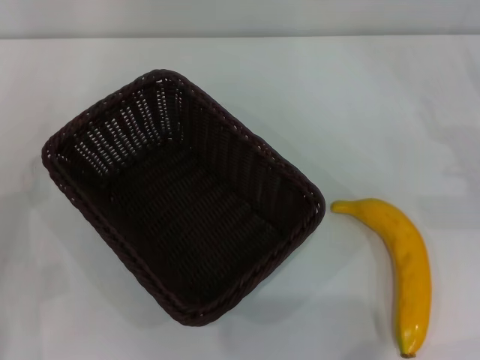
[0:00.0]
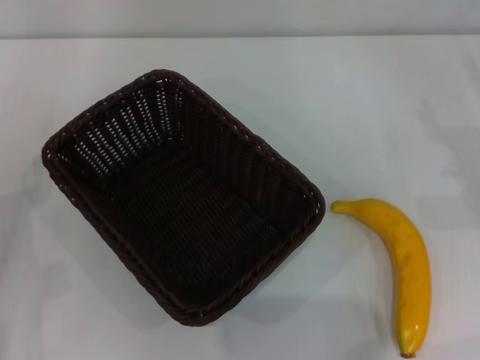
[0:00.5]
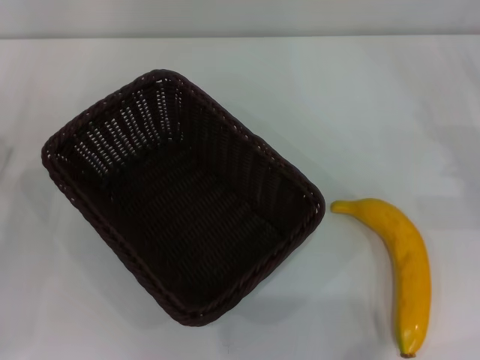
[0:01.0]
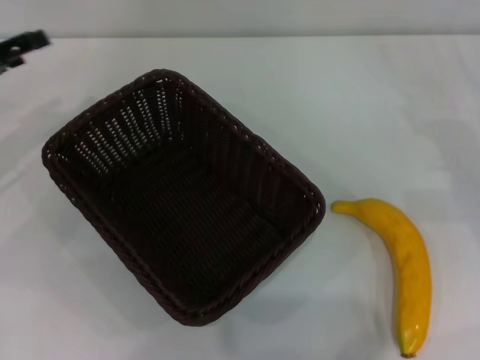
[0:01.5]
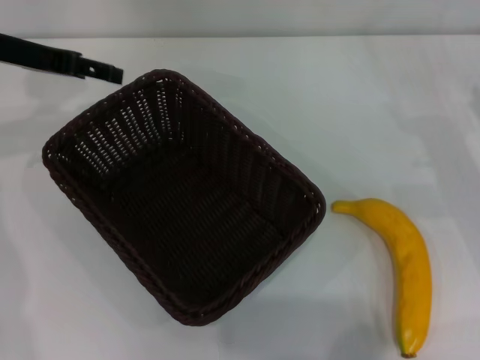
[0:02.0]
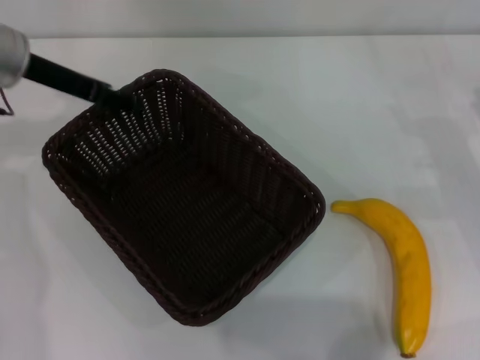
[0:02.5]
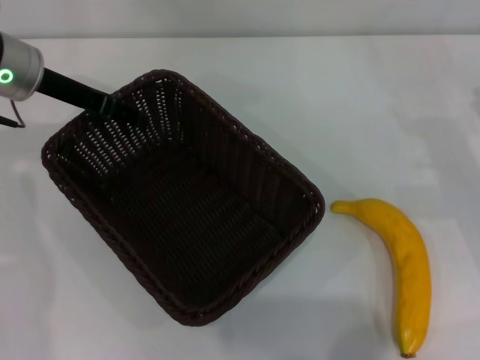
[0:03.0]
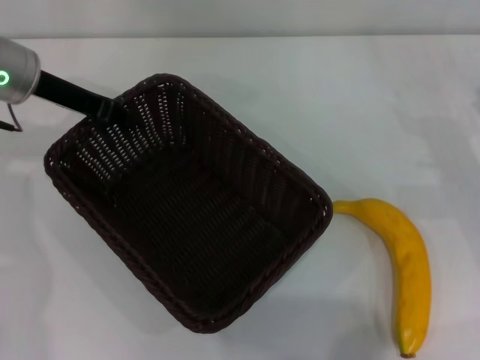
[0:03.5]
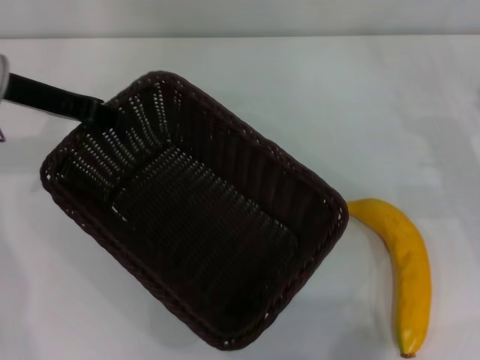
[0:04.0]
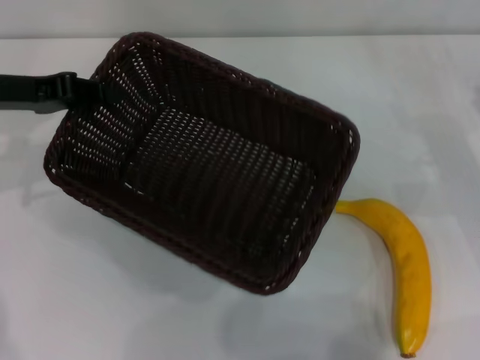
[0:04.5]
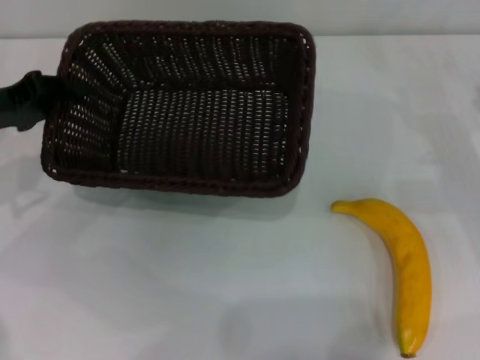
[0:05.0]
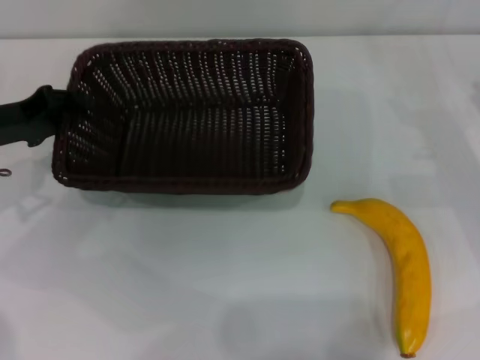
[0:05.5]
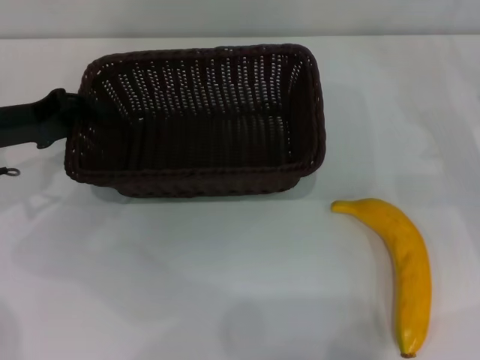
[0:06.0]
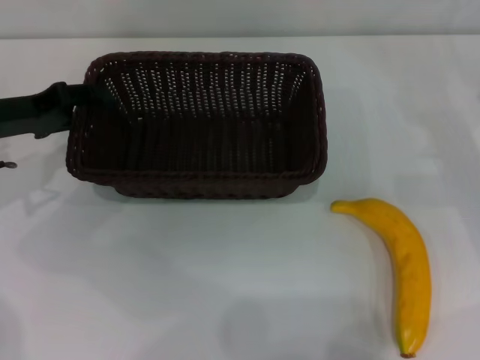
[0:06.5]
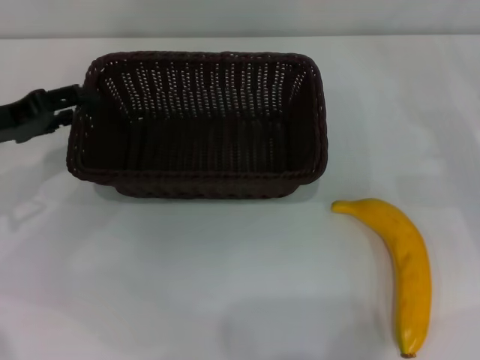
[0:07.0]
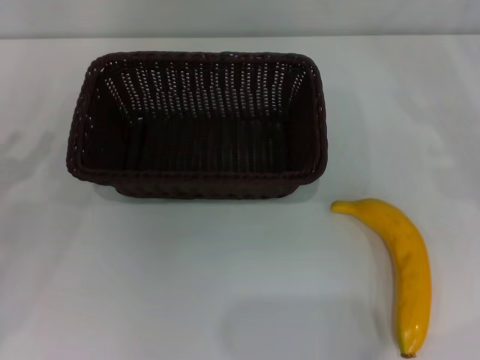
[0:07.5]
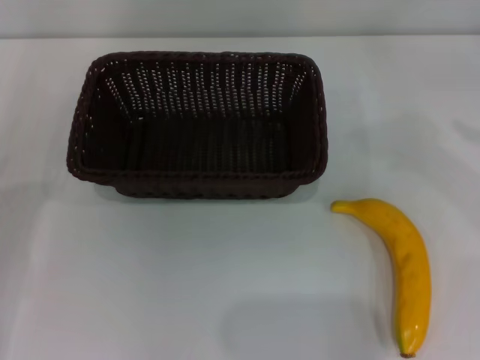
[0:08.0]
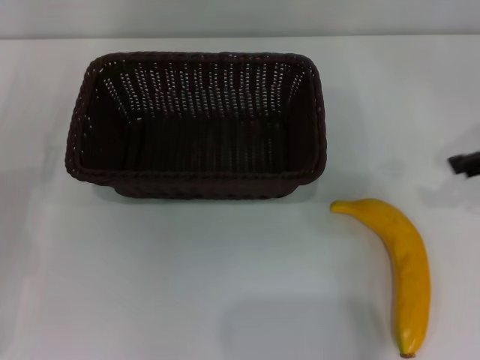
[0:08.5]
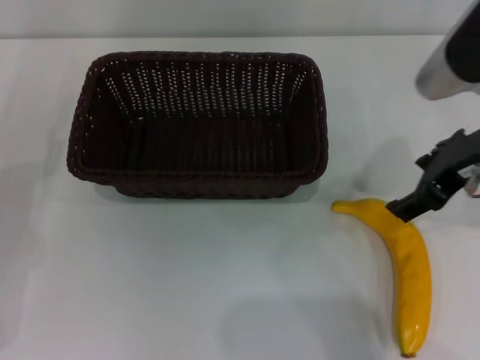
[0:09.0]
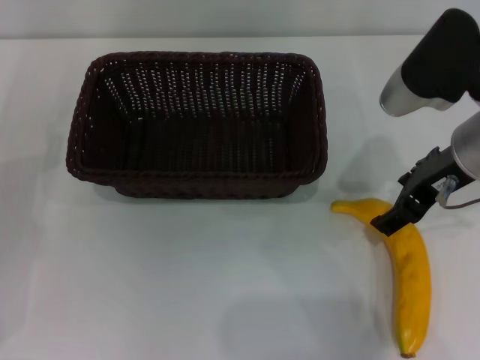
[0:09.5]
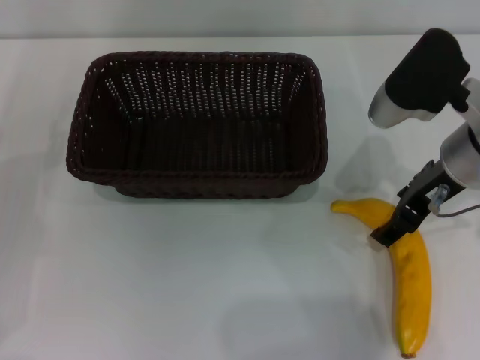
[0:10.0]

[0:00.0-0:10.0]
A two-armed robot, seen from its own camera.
Step, 0:00.0 to 0:04.0: Pick up the dark basket with the left gripper.
Step, 0:04.5 to 0:07.0: Place the dark basket in the center of view with the left gripper.
0:00.0 to 0:02.0: The left gripper moves forward and upward, some 25 cm.
0:02.0 to 0:04.0: The left gripper closes its fingers.
0:04.0 to 0:06.0: The left gripper moves downward, about 5 cm.
0:06.0 to 0:08.0: The right gripper goes some 15 cm upward and to the right. The left gripper moves backward, to the left and downward, some 15 cm, and opens up.
0:08.0 to 0:10.0: The right gripper shifts roughly 25 cm to the left.

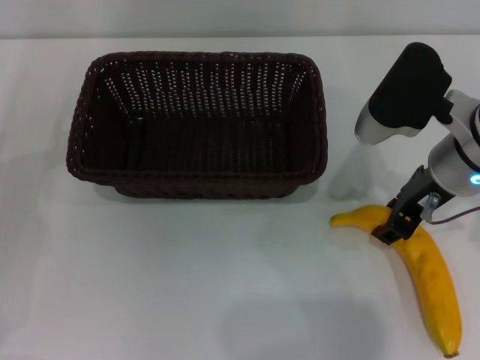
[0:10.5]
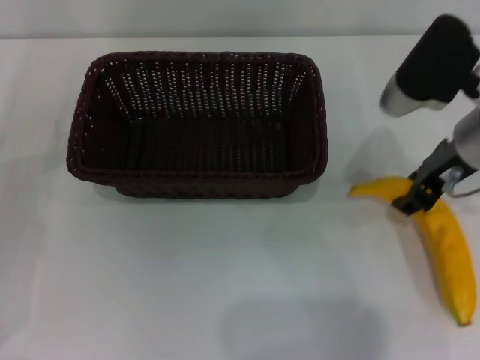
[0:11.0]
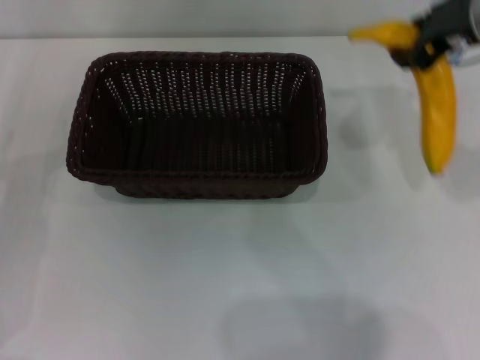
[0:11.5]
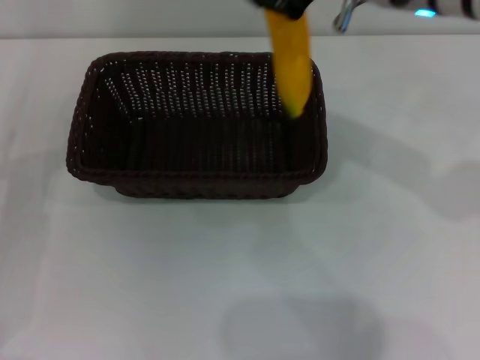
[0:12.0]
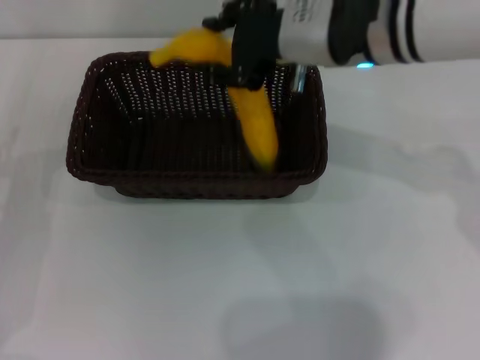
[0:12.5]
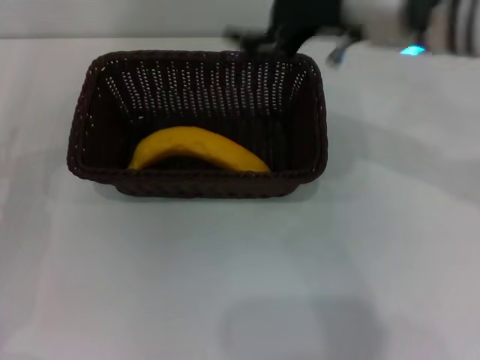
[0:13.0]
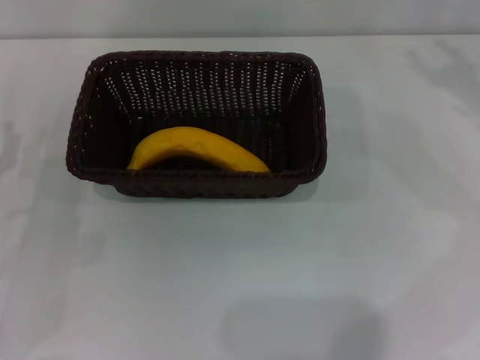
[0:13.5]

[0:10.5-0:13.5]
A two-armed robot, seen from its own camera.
Step, 0:11.5 to 0:12.5: Place the banana into the dark basket with the right gripper.
0:10.5 to 0:12.0: The right gripper goes approximately 15 cm upward and to the left, and closes.
0:12.0 to 0:13.5: The right gripper shifts roughly 25 cm to the right and downward, and opens its fingers.

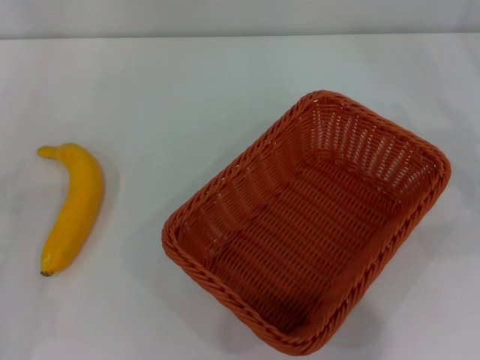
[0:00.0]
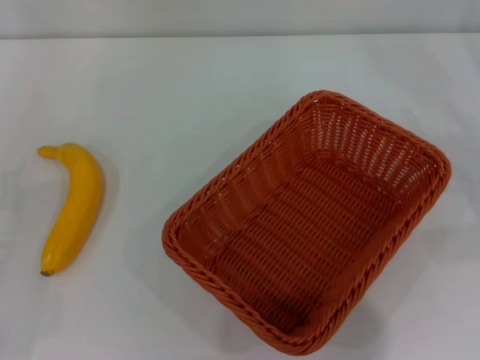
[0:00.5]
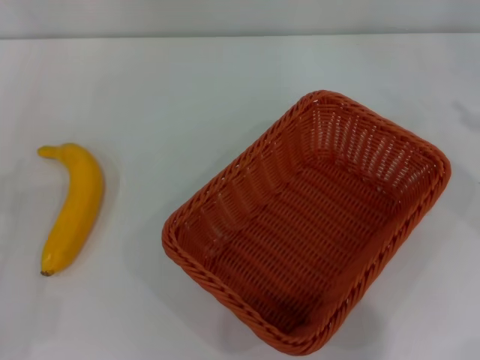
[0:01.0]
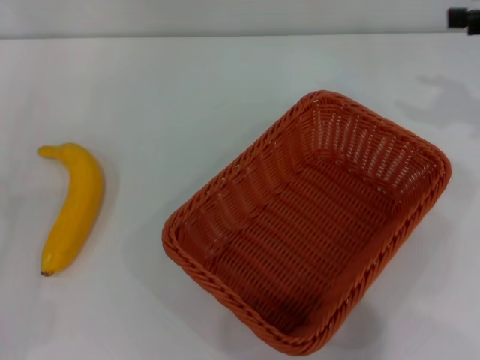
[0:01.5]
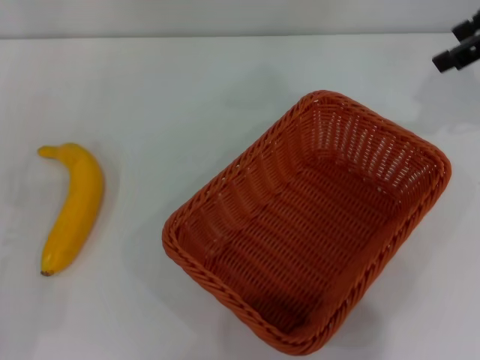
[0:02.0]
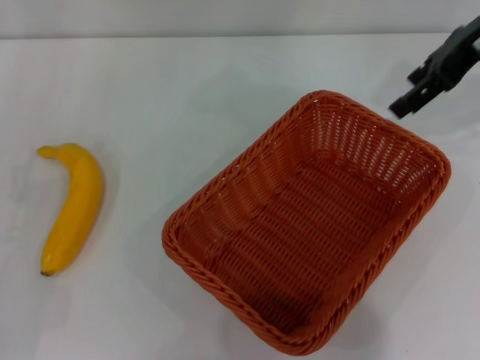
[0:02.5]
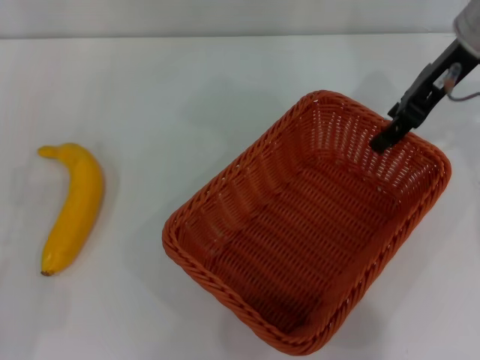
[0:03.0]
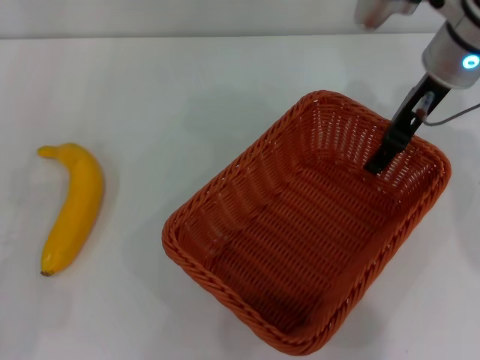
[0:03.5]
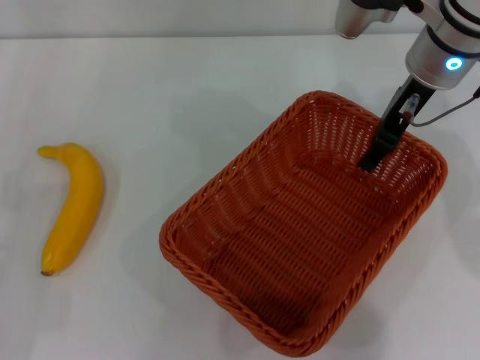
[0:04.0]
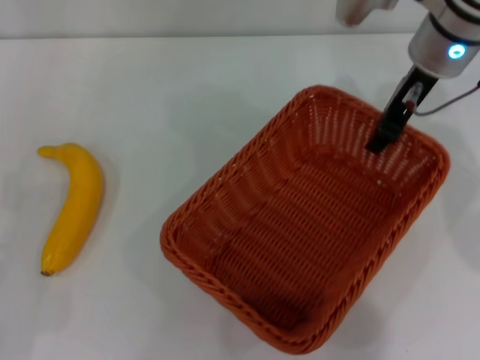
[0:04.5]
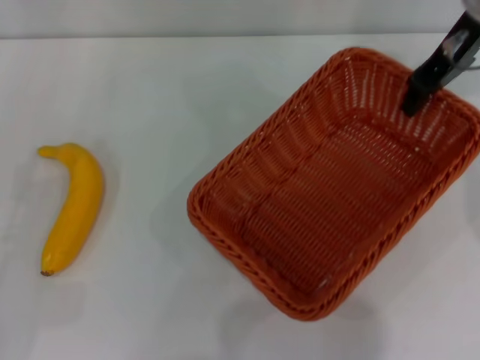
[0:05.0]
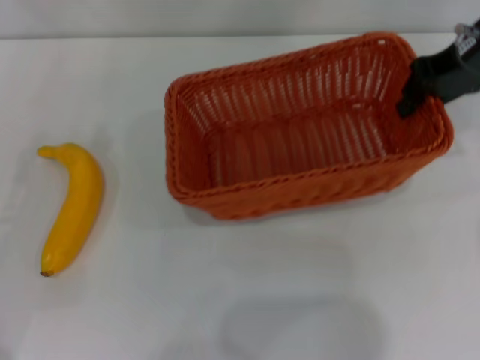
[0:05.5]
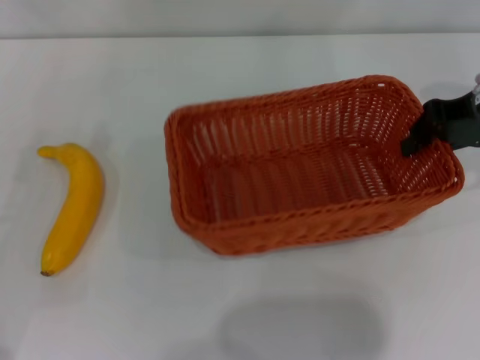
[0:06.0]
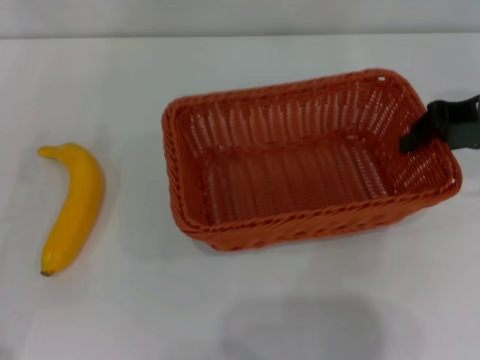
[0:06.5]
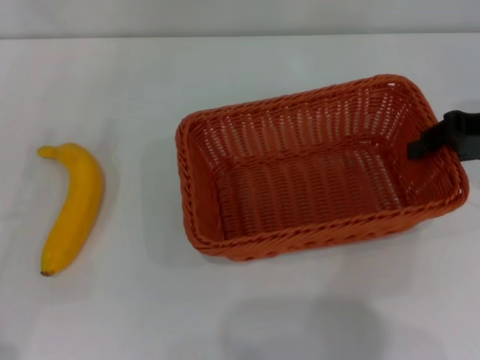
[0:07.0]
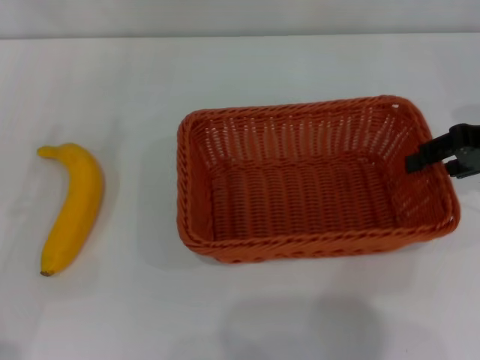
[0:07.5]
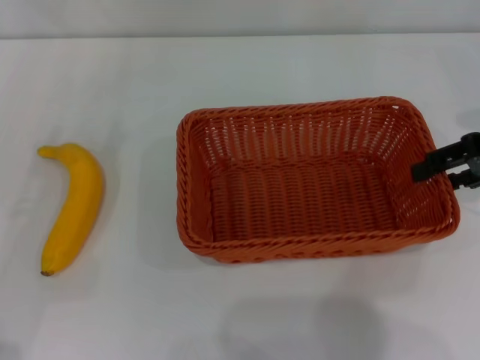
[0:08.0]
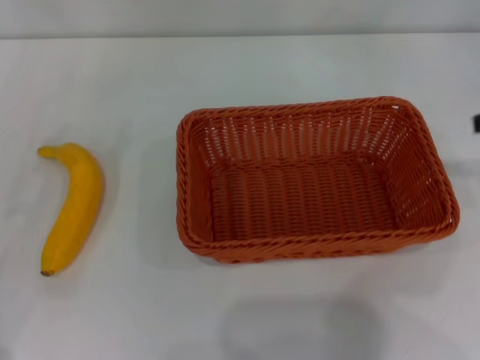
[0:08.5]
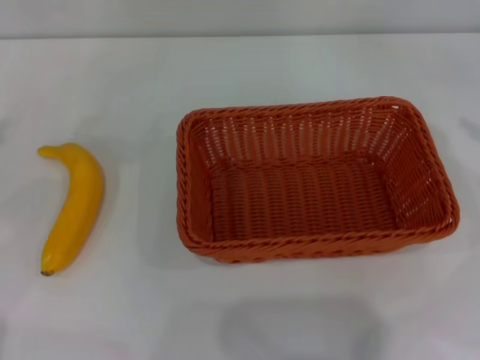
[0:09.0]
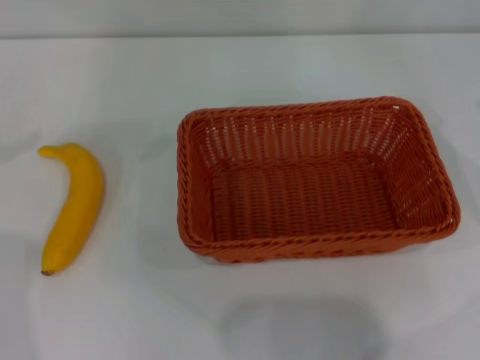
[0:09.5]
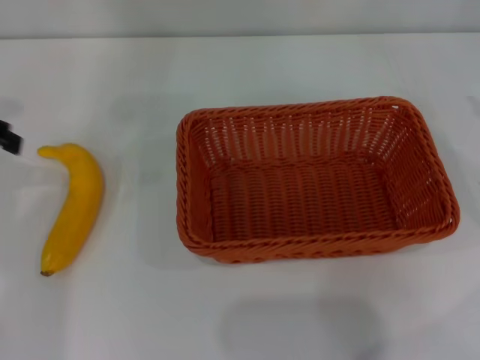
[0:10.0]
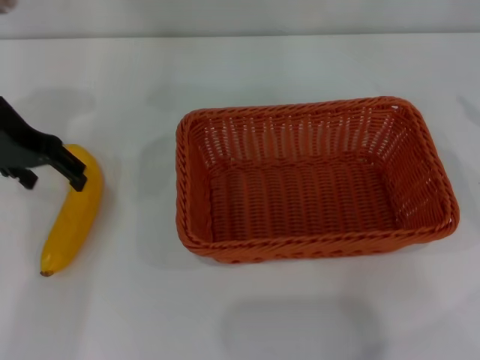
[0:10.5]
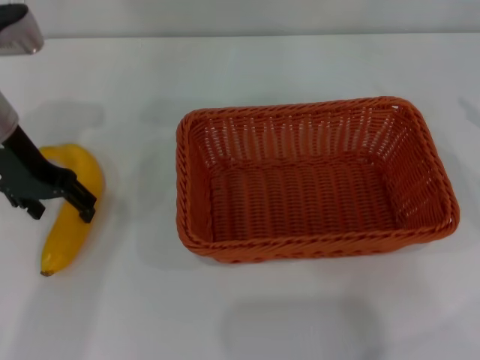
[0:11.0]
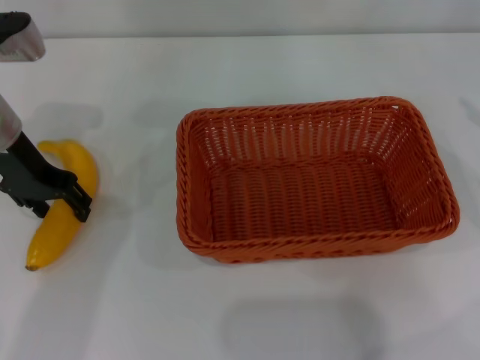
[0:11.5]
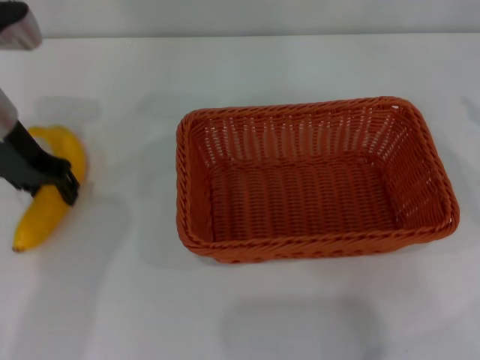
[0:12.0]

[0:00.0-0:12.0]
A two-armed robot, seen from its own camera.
Step, 0:00.0 to 0:04.5: Pick up the light basket with the right gripper.
Step, 0:05.0 to 0:08.0: Place the light basket in the center of view with the right gripper.
Step, 0:08.5 to 0:12.0: Pick up the banana with the left gripper.
0:00.0 to 0:02.0: The right gripper goes roughly 25 cm upward, forward and to the left.
0:02.0 to 0:04.0: The right gripper heads to the left and downward, covering roughly 15 cm.
0:04.0 to 0:06.0: The right gripper heads to the right, covering about 10 cm, and closes its fingers, while the left gripper shifts by about 5 cm.
0:06.0 to 0:08.0: The right gripper moves some 5 cm, and opens its fingers.
0:08.0 to 0:10.0: The right gripper goes approximately 10 cm to the right.
0:10.0 to 0:12.0: The left gripper moves to the right and downward, approximately 15 cm, and closes.
